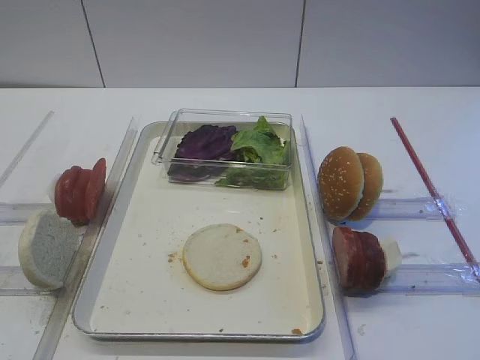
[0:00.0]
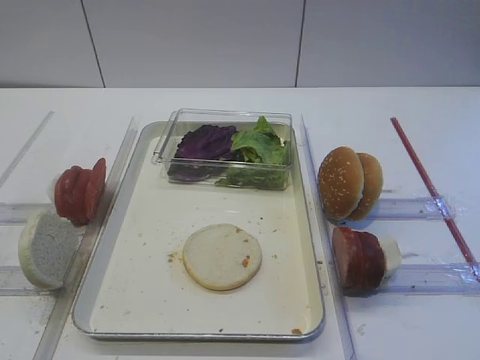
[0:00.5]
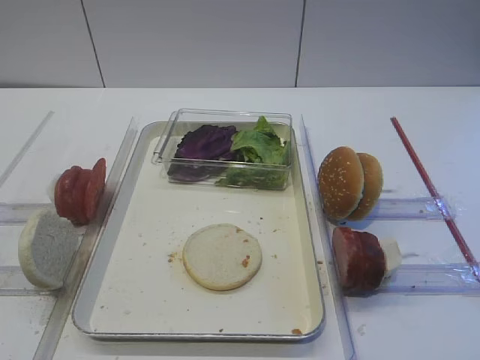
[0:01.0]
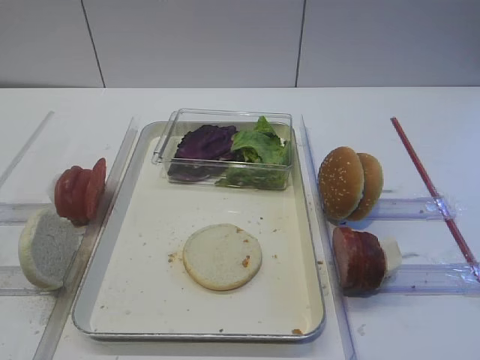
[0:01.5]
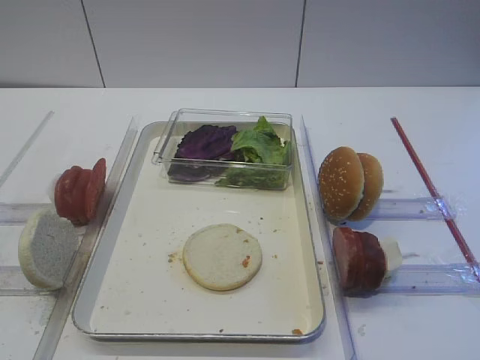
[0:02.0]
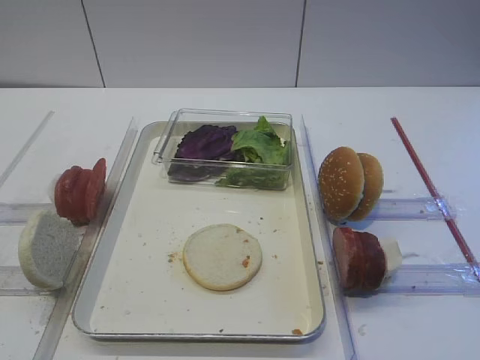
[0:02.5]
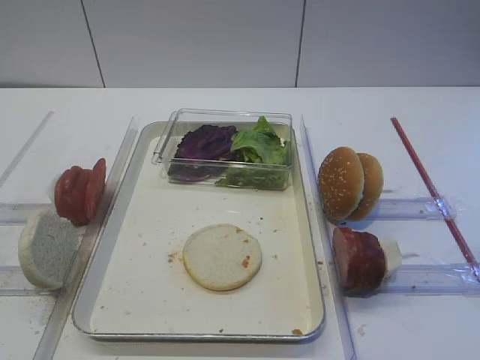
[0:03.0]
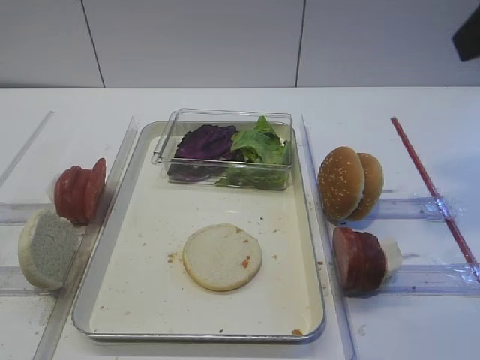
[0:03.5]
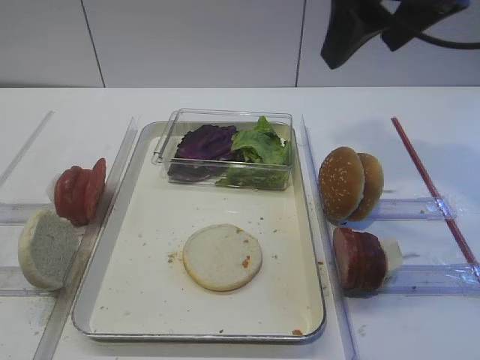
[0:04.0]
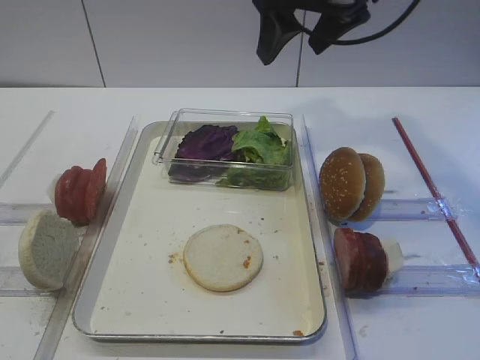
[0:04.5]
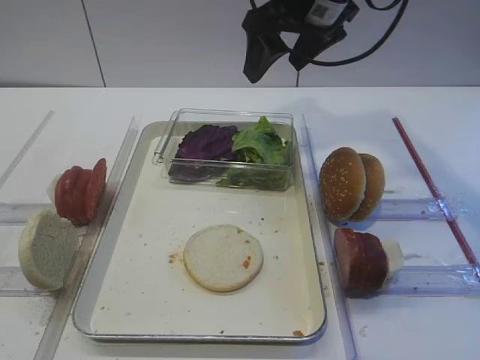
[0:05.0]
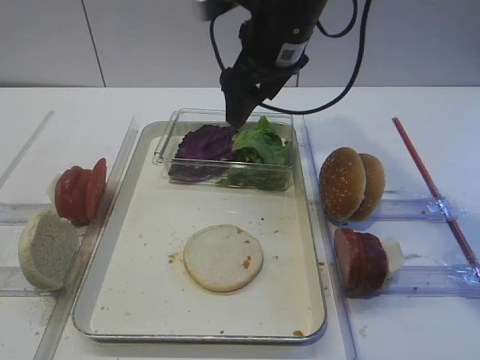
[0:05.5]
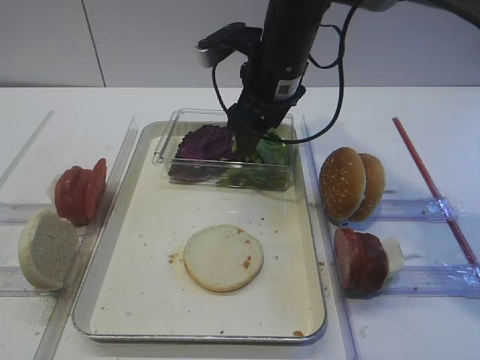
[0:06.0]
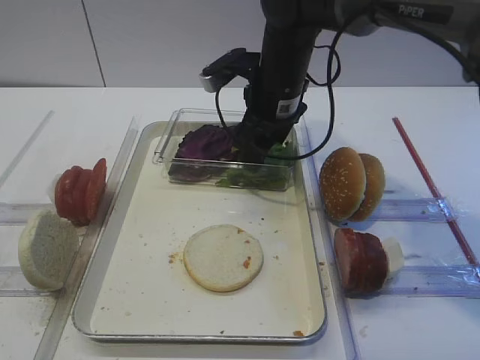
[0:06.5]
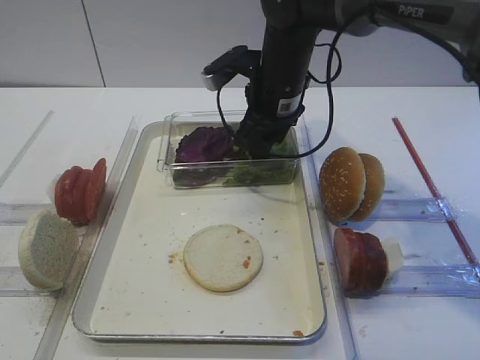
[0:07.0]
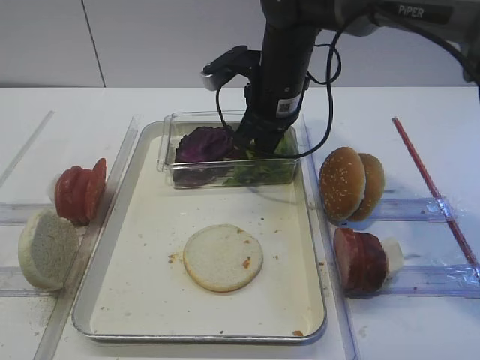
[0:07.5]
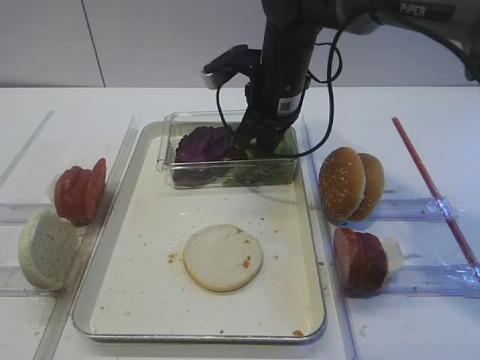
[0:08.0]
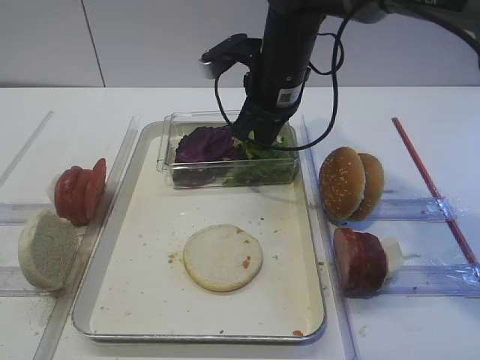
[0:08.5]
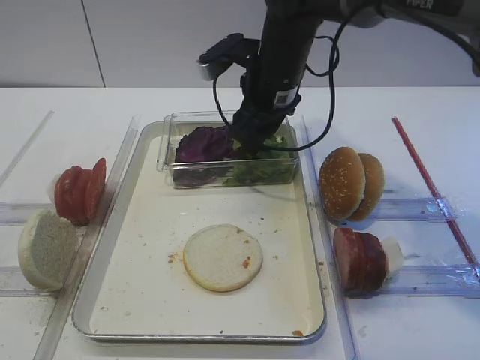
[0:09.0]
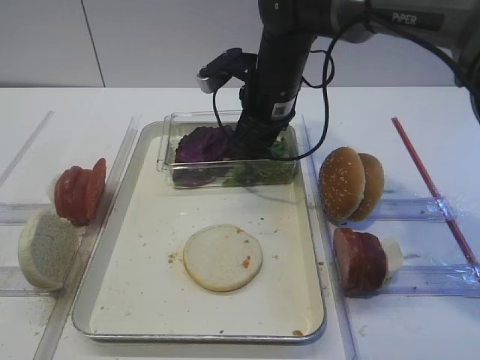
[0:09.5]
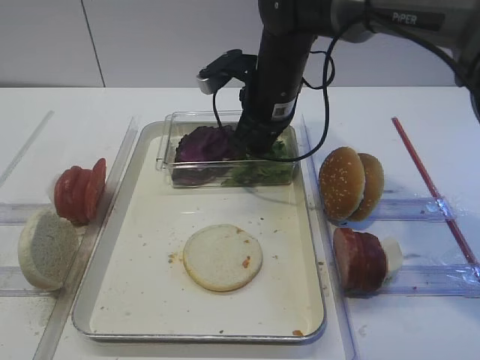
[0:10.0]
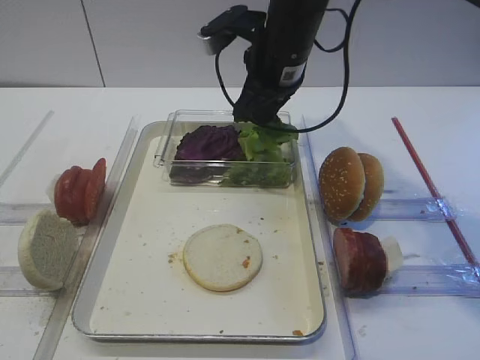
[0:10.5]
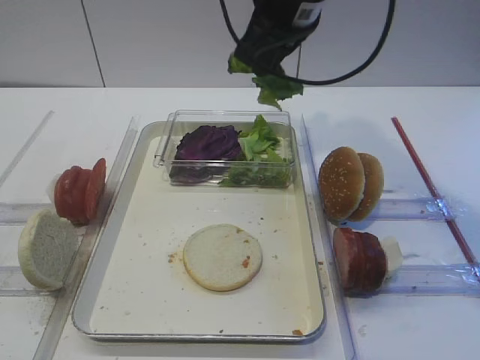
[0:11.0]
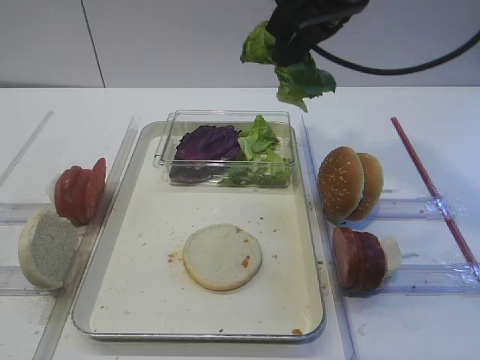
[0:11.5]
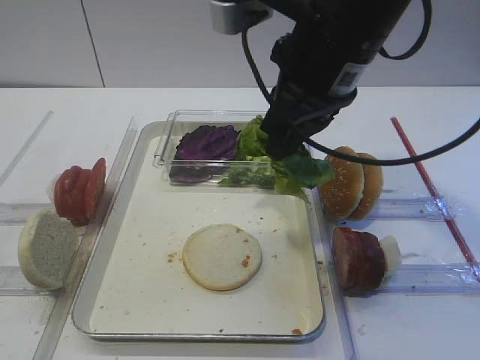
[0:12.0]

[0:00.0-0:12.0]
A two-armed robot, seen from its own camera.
Step, 0:00.0 to 0:10.0: Pick up the lettuce leaf with the right gripper.
0:02.0 to 0:04.0: The right gripper shifts roughly 30 cm forward and upward.
0:04.0 to 0:06.0: The right gripper goes some 20 cm downward, forward and to the left.
0:06.0 to 0:08.0: The right gripper closes its fingers.
0:08.0 to 0:10.0: The right gripper opens and closes again.
0:10.0 to 0:12.0: The right gripper moves backward and upward, roughly 20 cm.

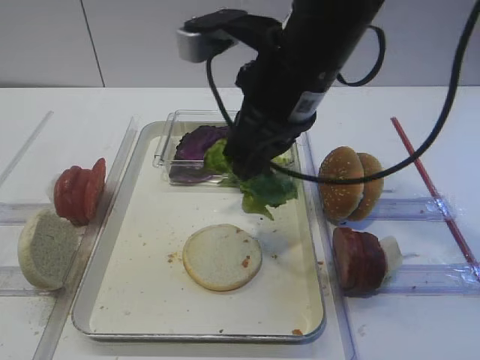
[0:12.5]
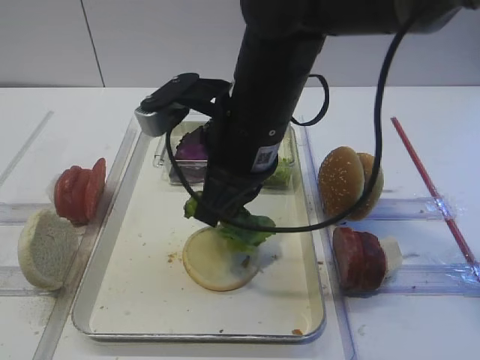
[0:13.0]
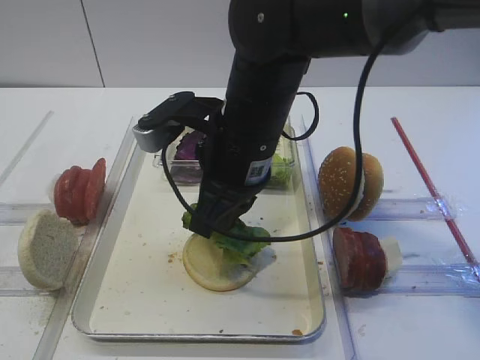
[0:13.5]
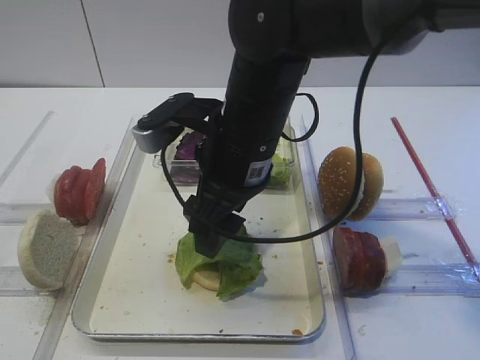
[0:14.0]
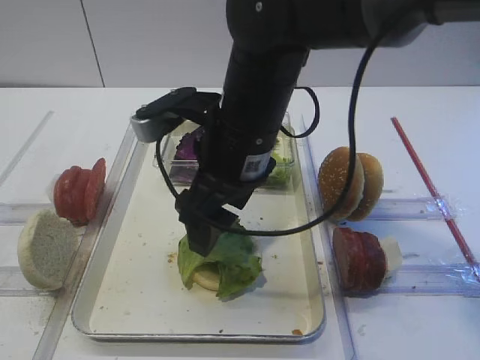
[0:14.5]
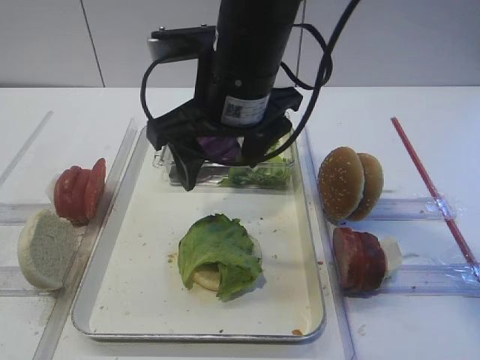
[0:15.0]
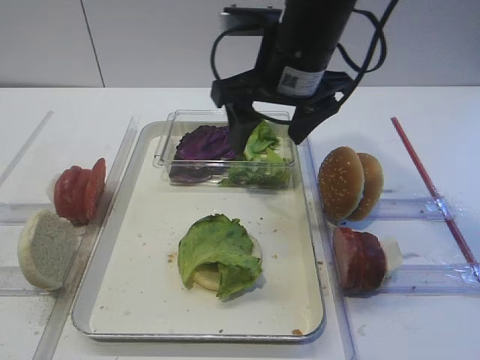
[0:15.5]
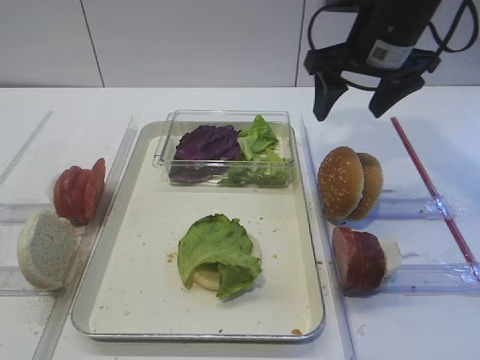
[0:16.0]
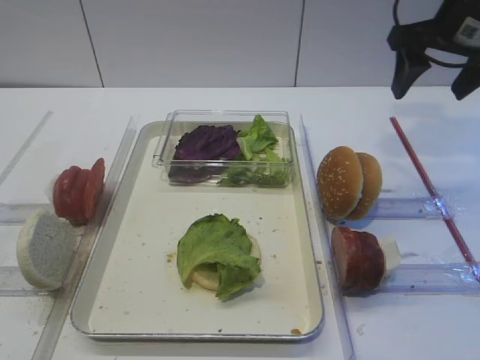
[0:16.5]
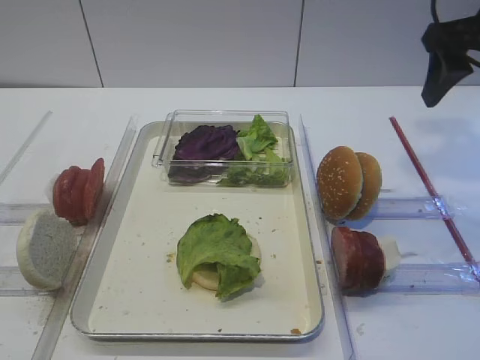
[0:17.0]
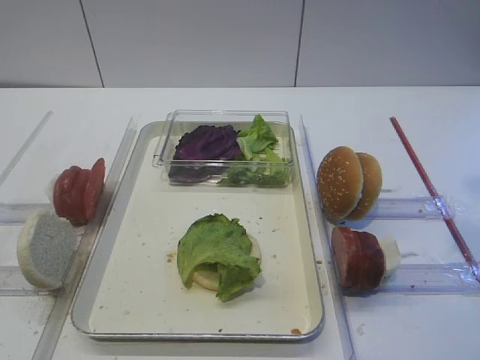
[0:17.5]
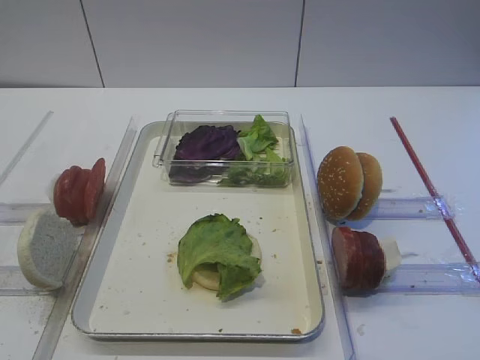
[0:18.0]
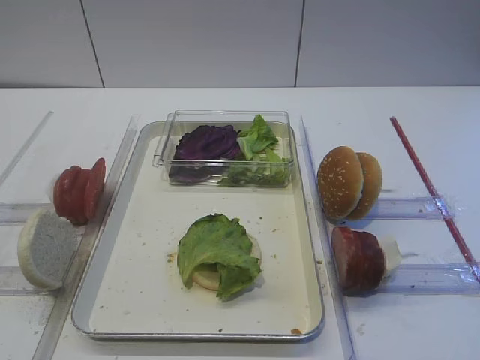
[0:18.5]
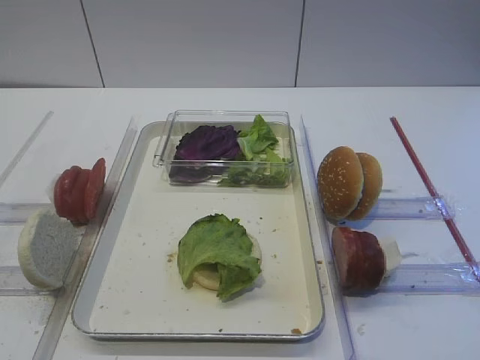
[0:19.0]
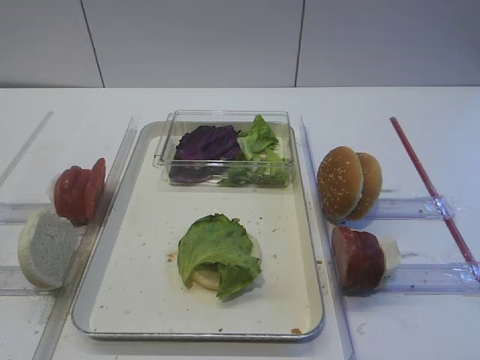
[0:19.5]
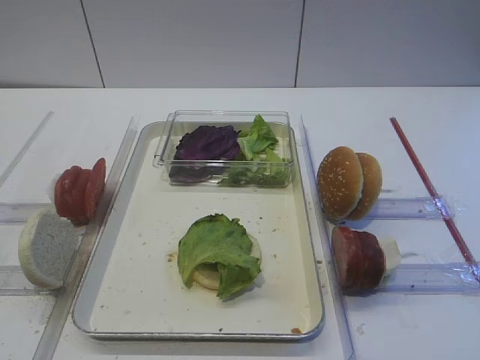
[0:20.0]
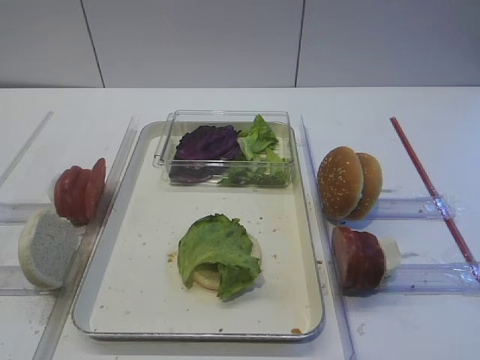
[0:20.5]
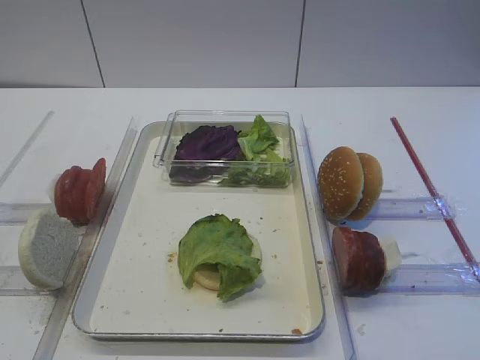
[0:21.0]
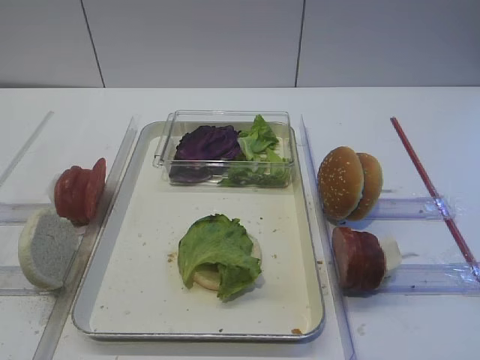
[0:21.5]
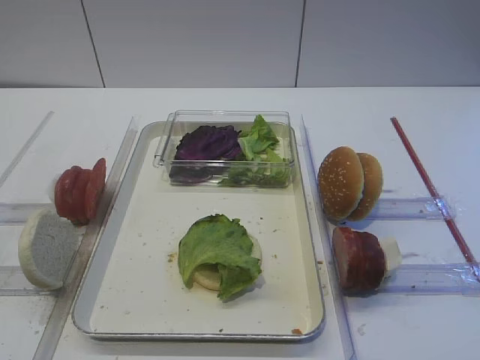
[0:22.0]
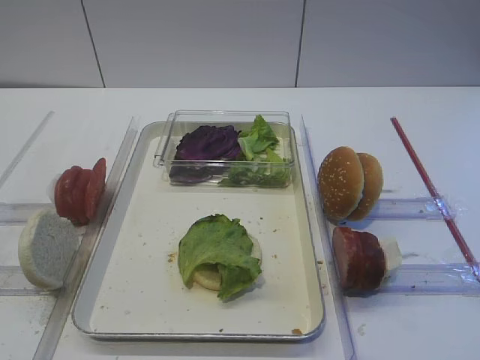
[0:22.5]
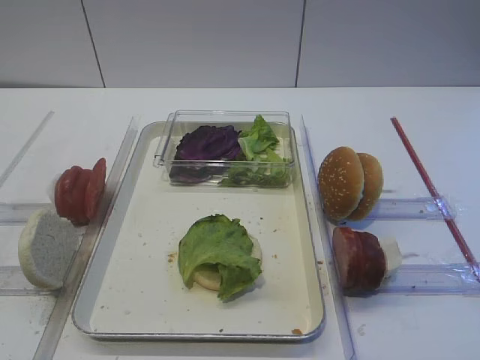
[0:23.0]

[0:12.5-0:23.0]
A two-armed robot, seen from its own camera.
Step, 0:12.5 to 0:14.5: Place the lettuce leaf on the bread slice with the right gripper.
0:12.5 to 0:14.5: The right gripper goes some 10 cm downward and to the left, and opens its fingers.
0:14.5 to 0:16.5: The right gripper moves to the right and forward, roughly 25 cm.
0:16.5 to 0:19.0: The right gripper moves backward, some 40 cm.
0:21.0 to 0:23.0: Neither gripper changes place.

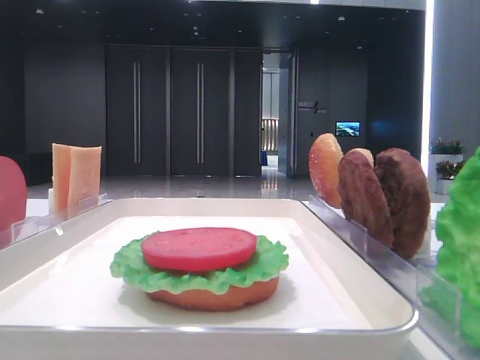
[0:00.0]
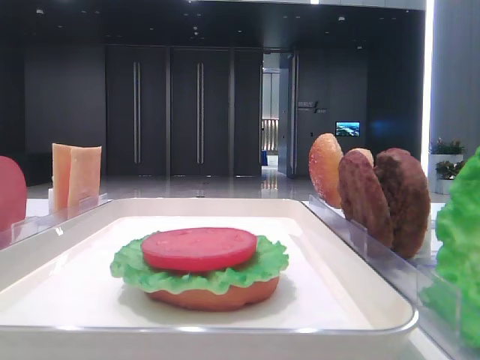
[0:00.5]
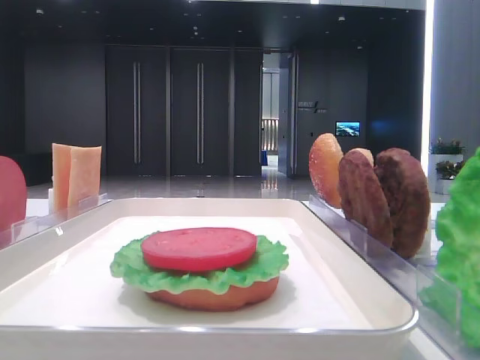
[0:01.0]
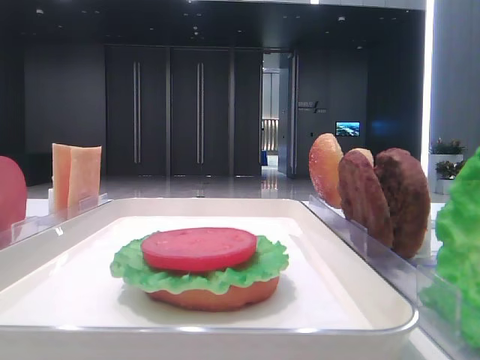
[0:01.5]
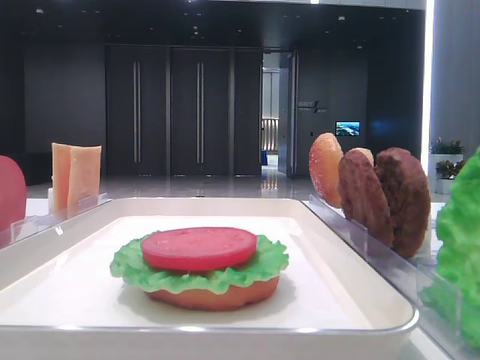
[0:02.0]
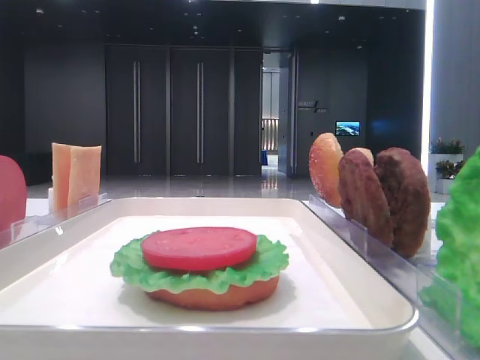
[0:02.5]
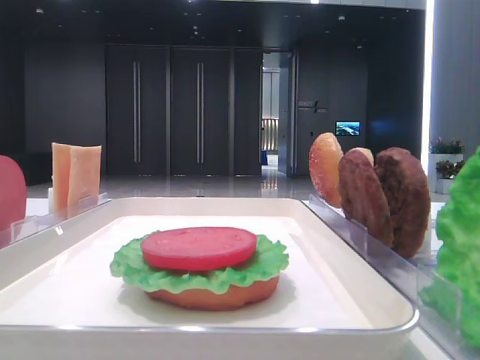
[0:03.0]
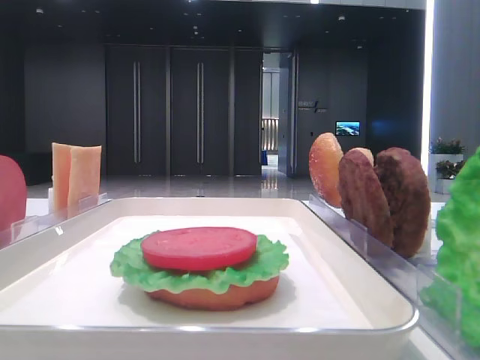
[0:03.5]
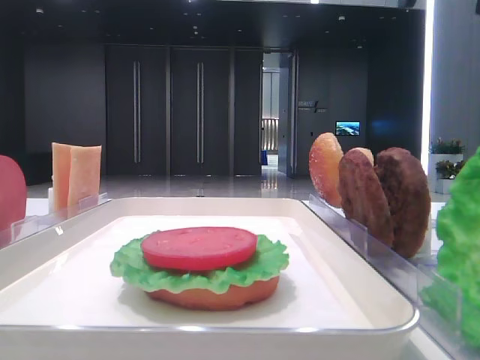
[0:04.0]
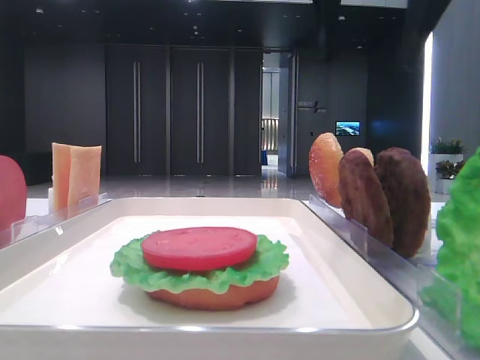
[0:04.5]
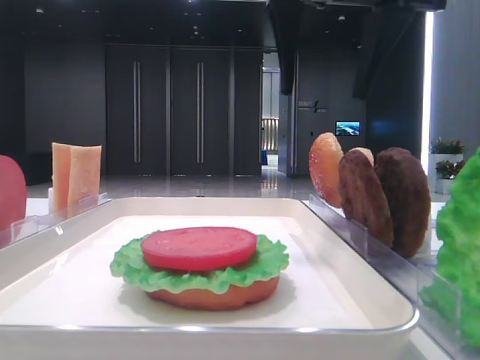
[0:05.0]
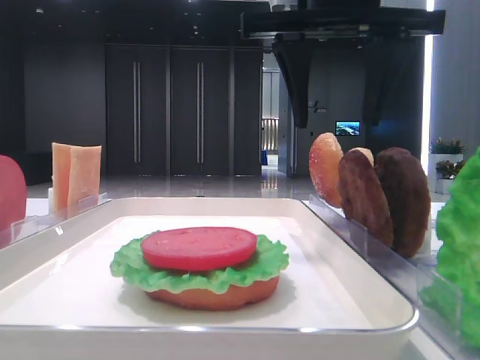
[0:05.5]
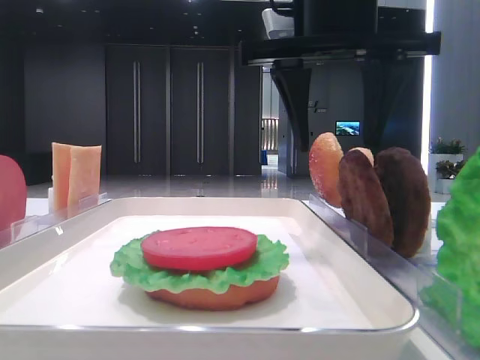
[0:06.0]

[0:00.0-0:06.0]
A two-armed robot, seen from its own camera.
0:04.0 to 0:06.0: The right gripper heads downward and to the left, covering approximately 15 cm.
